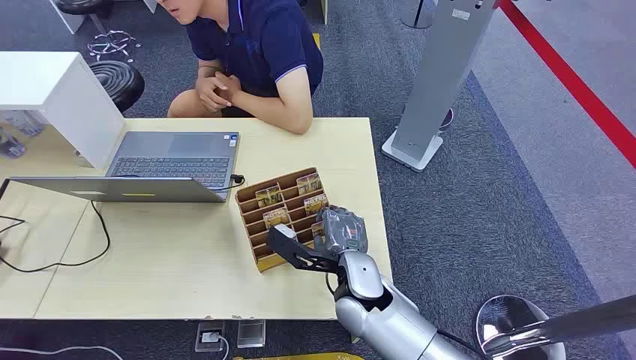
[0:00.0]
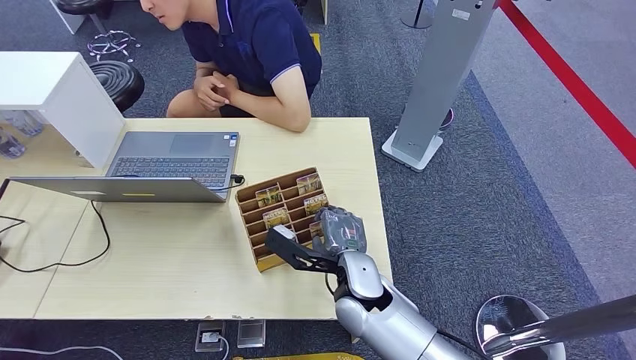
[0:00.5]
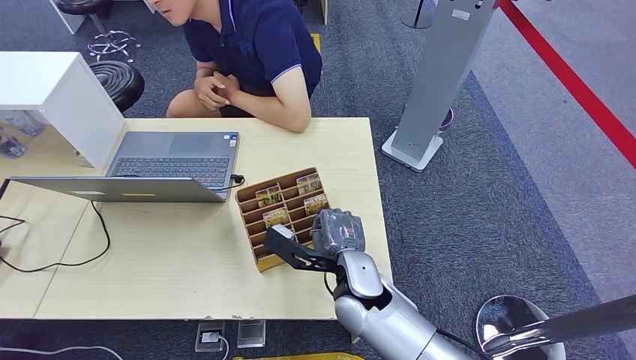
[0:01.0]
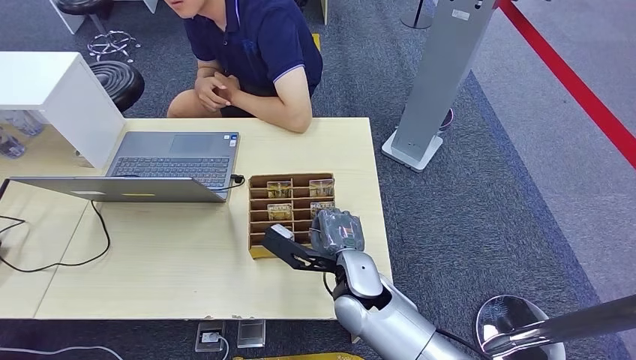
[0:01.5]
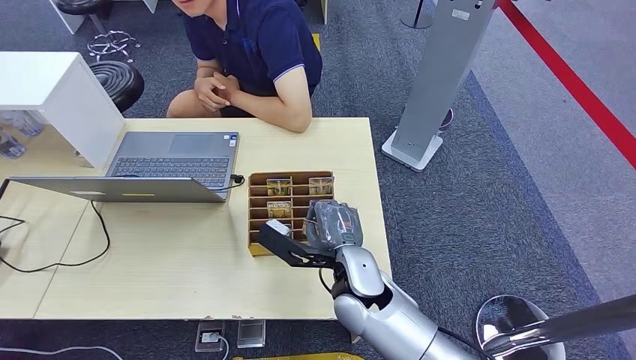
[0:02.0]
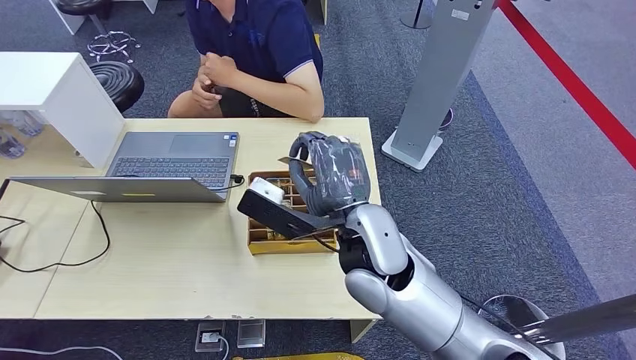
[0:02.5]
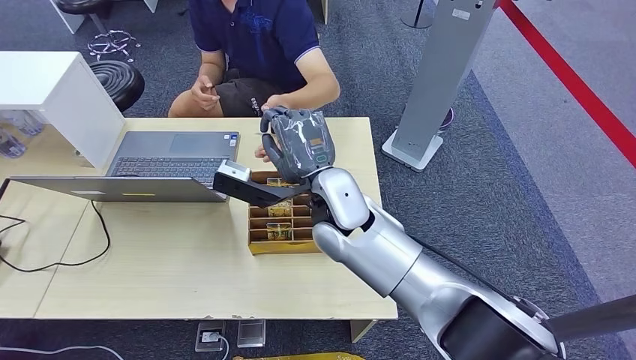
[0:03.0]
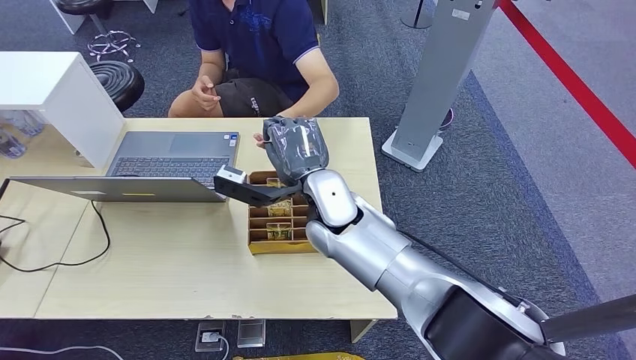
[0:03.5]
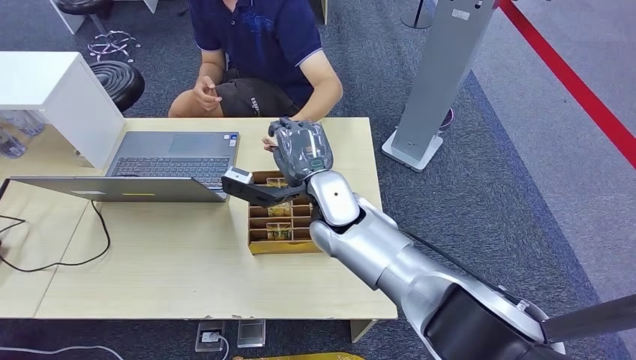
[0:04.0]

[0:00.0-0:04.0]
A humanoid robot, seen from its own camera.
Step, 0:00.0 to 0:02.0: Pick up the key card from the card box.
Step, 0:02.5 to 0:04.0: Hand the key card to the target.
0:02.0 to 0:04.0: The right hand shifts some 10 cm forward and upward.
